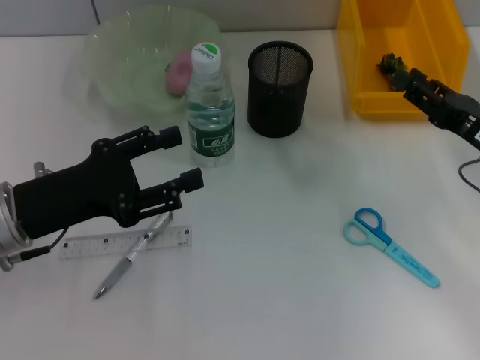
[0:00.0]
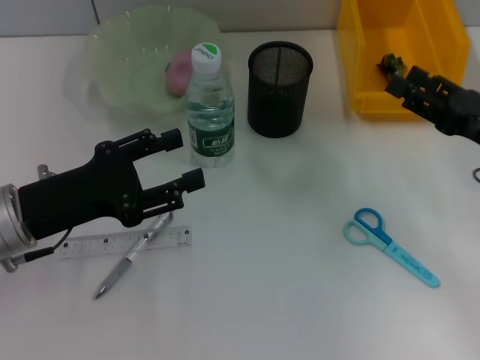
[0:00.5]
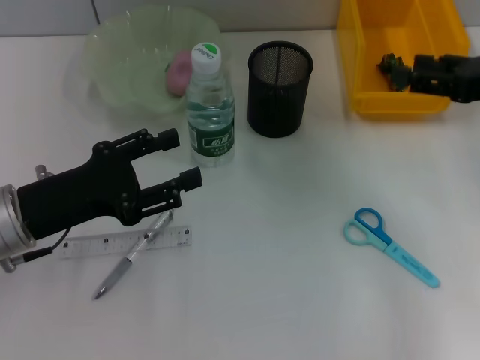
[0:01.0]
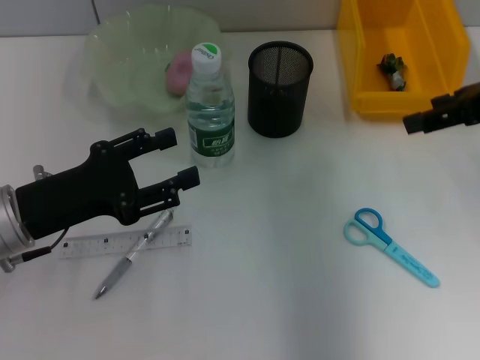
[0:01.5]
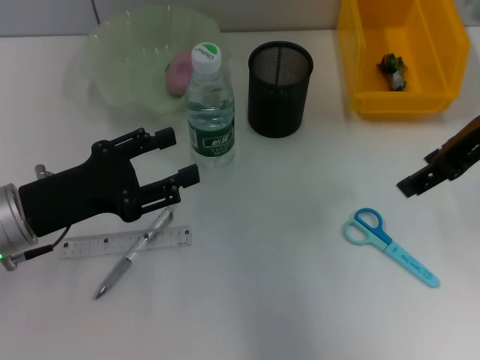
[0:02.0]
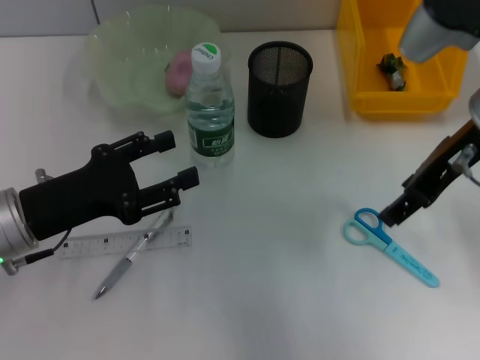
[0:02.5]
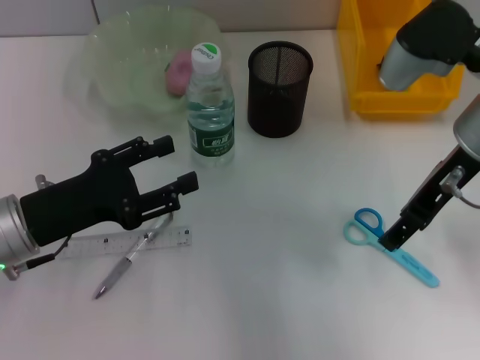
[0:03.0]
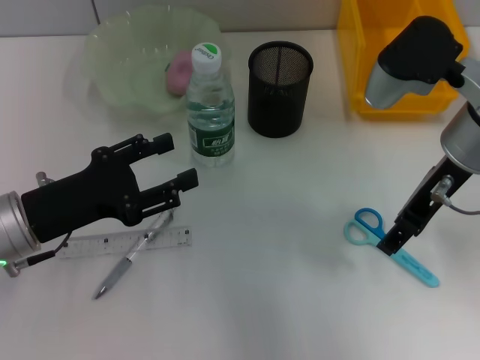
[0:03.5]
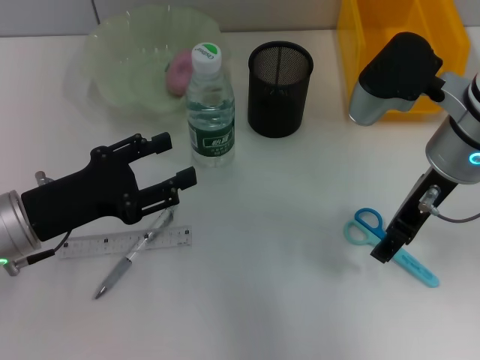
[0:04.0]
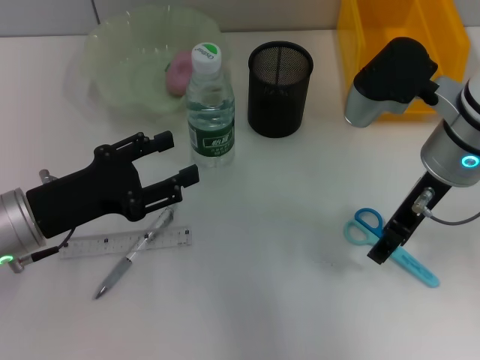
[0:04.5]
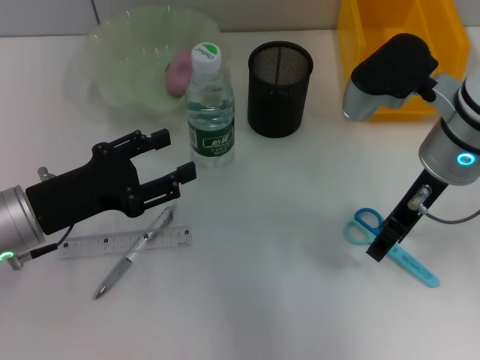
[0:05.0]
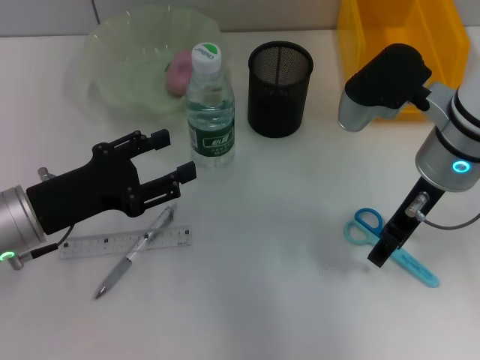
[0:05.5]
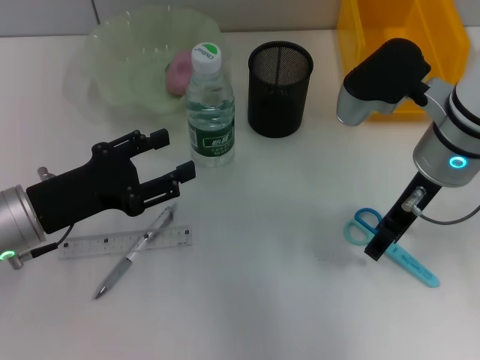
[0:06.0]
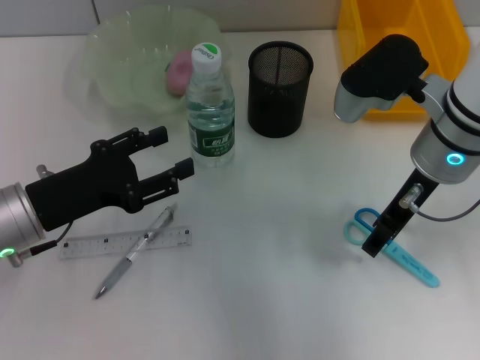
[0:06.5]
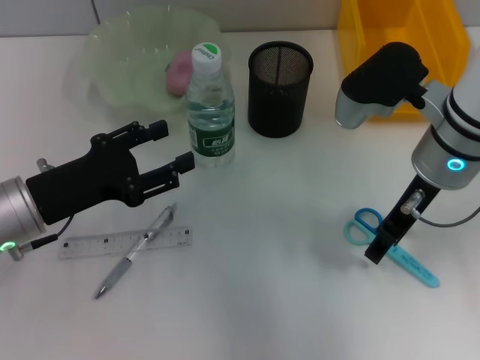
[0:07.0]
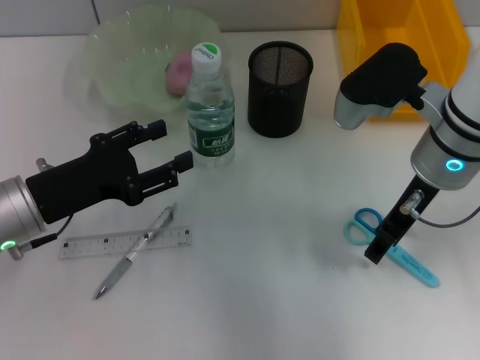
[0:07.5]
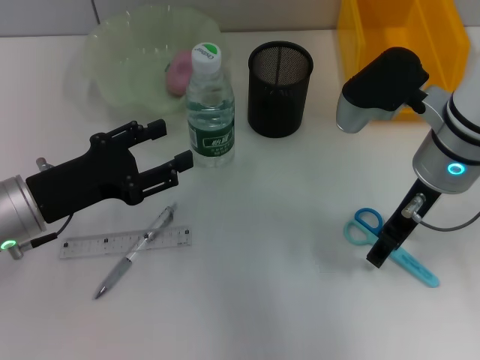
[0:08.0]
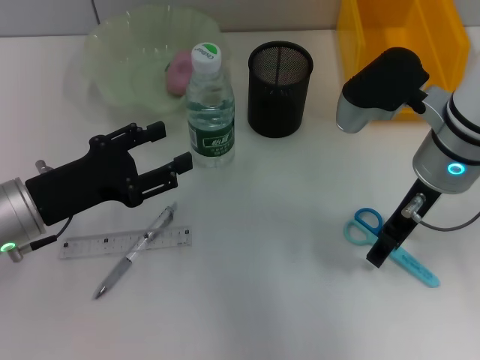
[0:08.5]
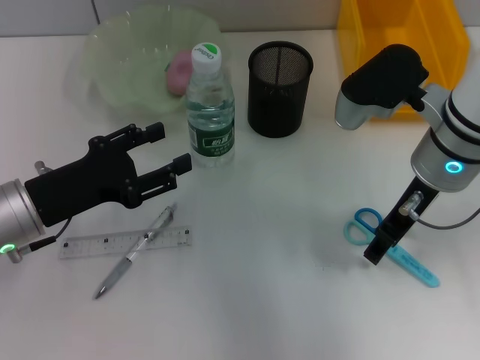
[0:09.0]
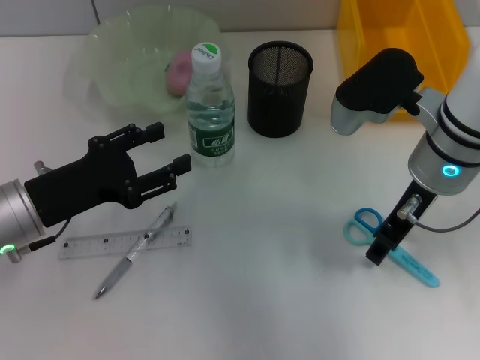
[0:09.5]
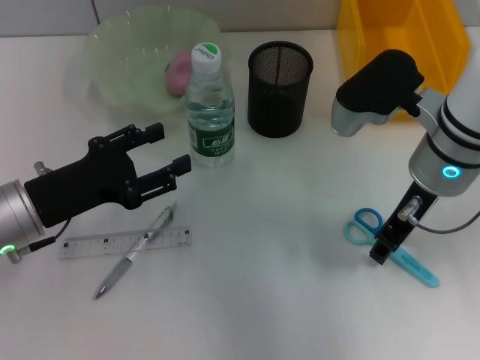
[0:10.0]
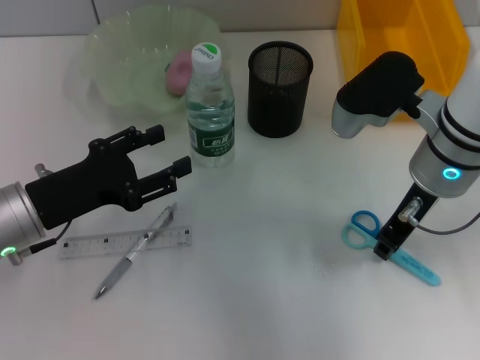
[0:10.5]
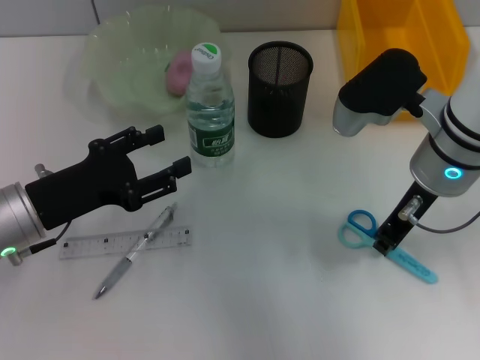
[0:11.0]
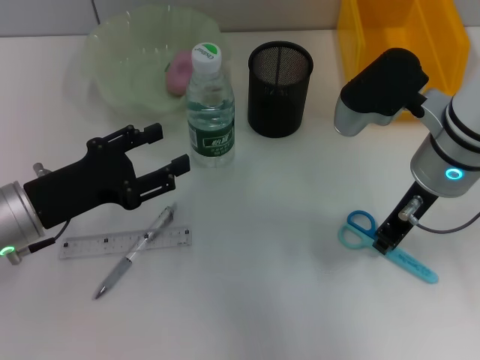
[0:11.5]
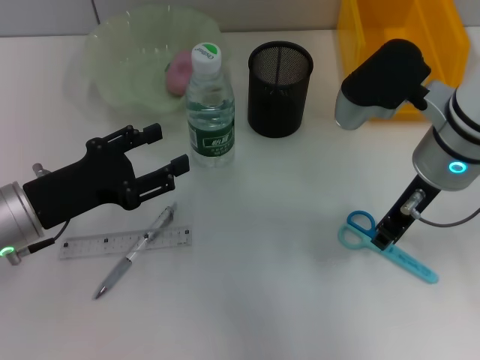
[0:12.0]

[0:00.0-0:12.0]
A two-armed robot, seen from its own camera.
0:00.0 to 0:02.0: The right gripper shifts approximately 15 cm upward.
0:02.0 to 0:04.0: The right gripper is displaced downward and to the left by roughly 10 cm.
0:04.0 to 0:06.0: The grippers make only small movements.
0:06.0 to 0:10.0: Both grippers stay about where they are.
0:10.0 to 0:12.0: The right gripper closes.

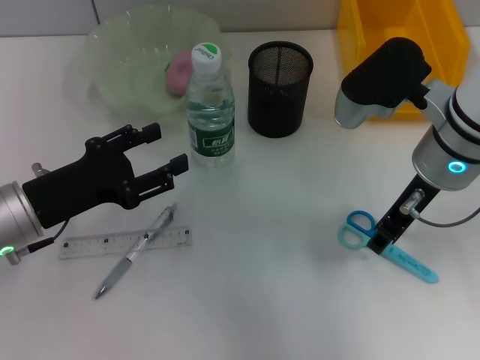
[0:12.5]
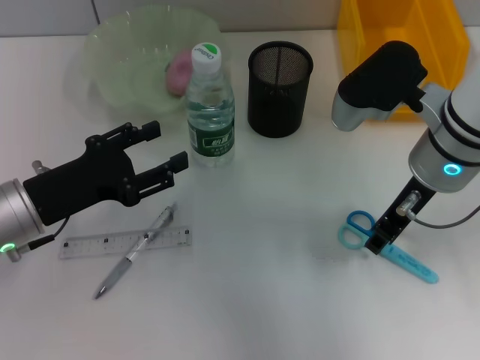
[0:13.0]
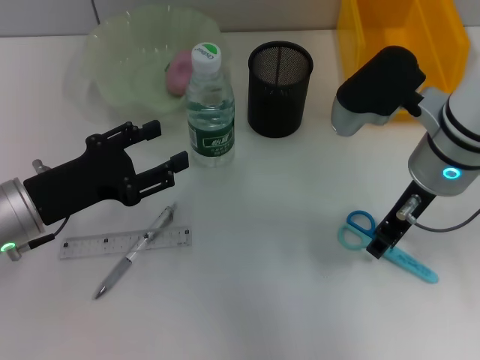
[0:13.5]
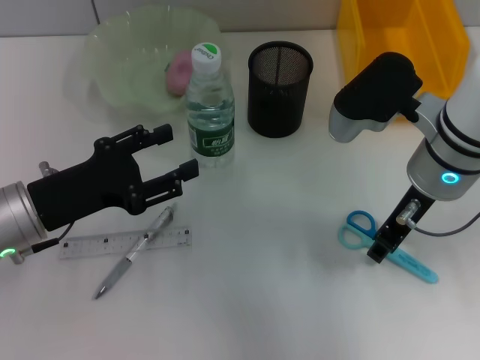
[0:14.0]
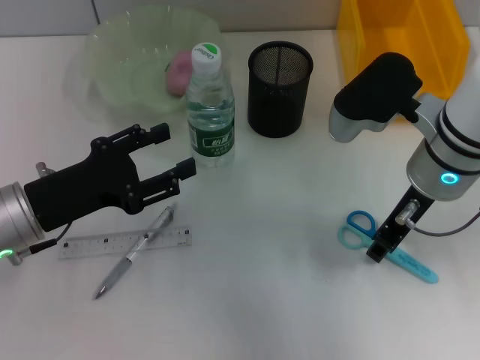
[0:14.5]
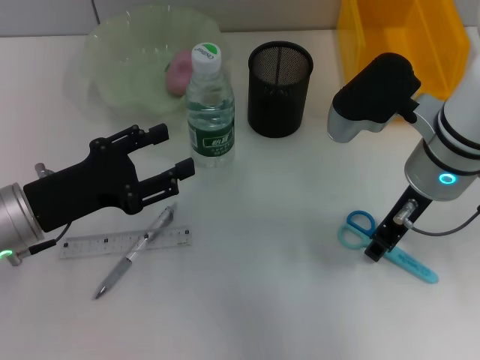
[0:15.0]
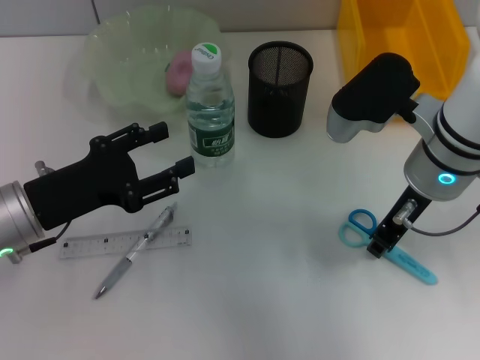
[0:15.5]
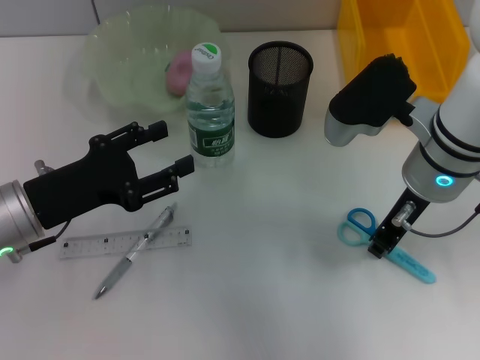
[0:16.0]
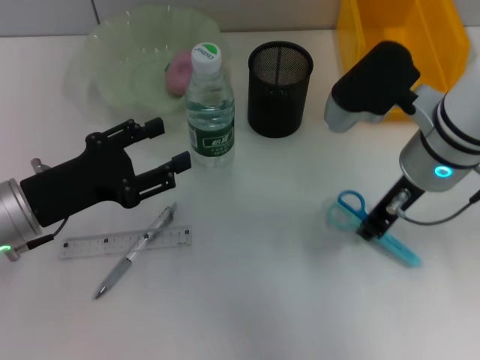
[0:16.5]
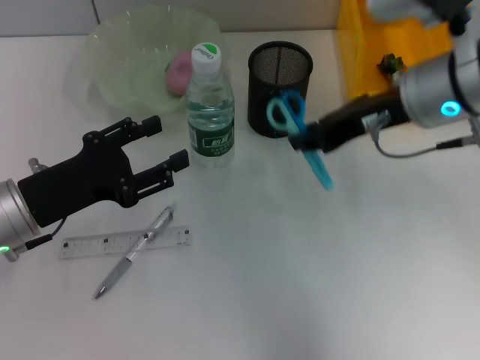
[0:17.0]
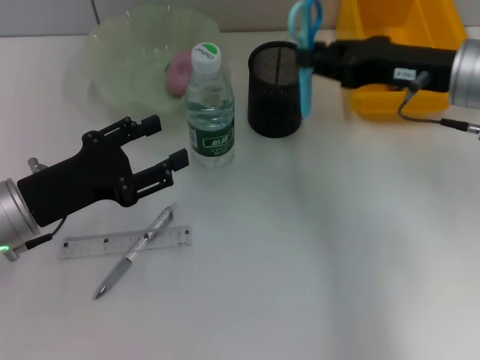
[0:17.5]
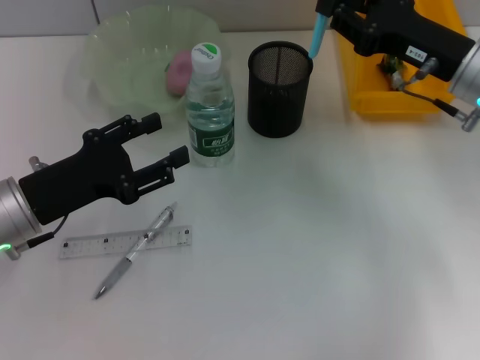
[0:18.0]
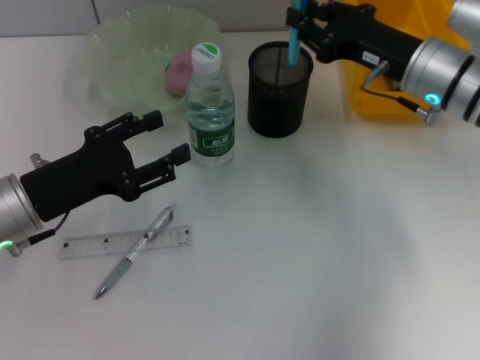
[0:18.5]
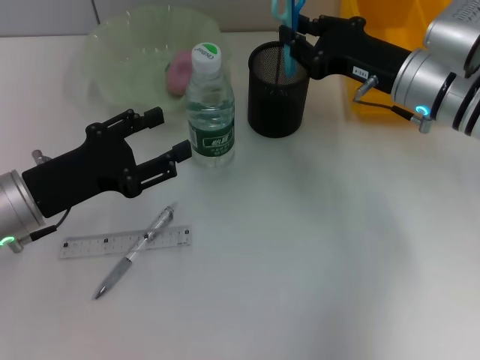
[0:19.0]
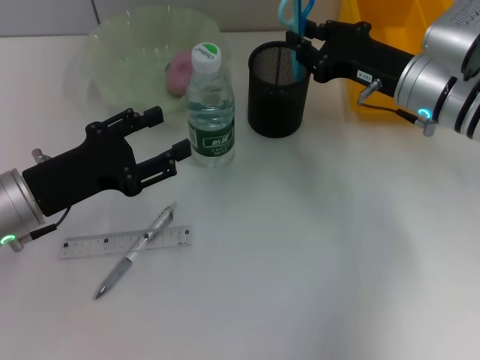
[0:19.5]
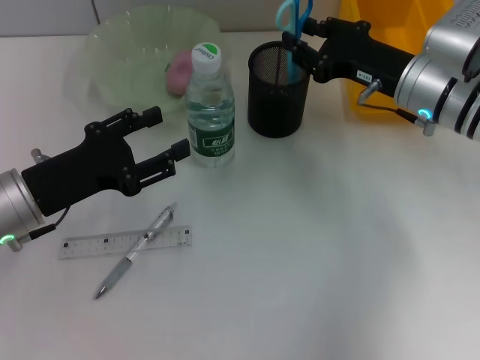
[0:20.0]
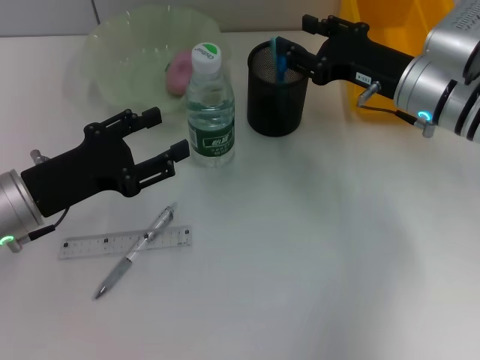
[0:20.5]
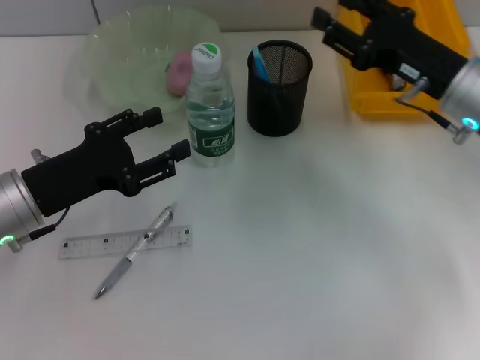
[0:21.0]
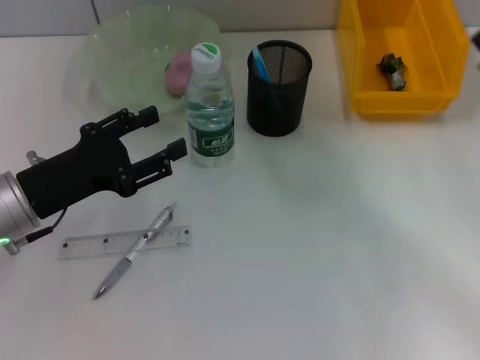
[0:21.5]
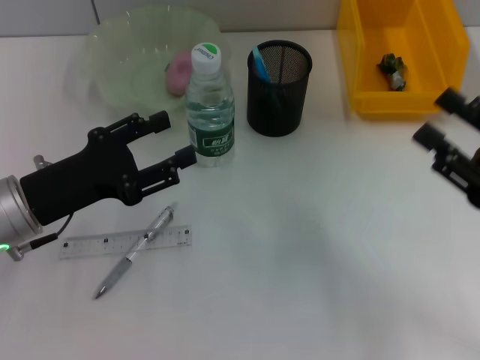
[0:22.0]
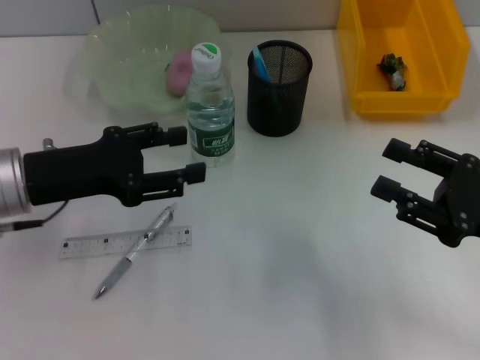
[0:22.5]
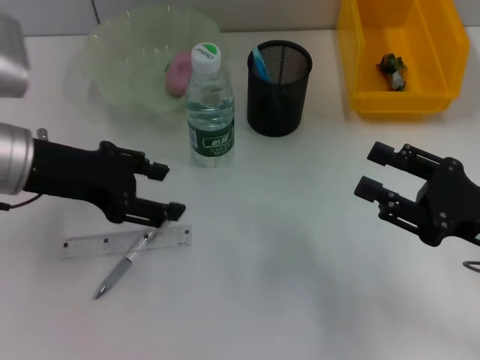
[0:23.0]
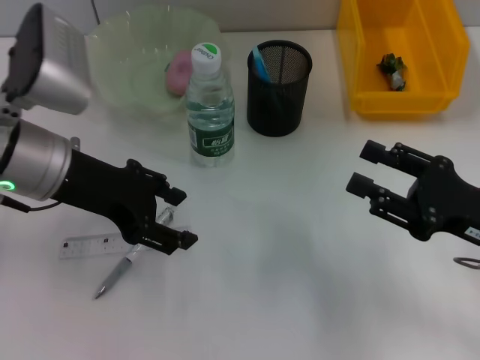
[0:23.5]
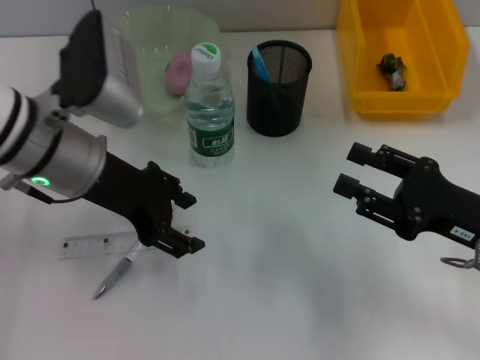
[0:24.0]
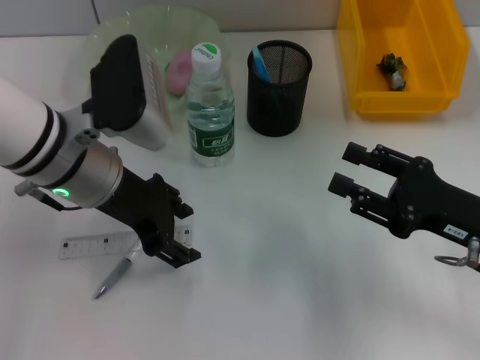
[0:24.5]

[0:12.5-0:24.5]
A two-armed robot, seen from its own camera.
Step, 0:12.5 to 0:16.0: Grab the blue scissors with the right hand.
Step, 0:16.5 to 0:20.5: Place the blue scissors into the pen holder with the right hand.
0:12.5 to 0:14.5: The two grippers keep their place.
0:14.5 to 0:16.5: The grippers stay close to where they were, moving slightly.
0:16.5 to 0:18.5: The right gripper is displaced forward by some 5 cm.
0:18.5 to 0:20.5: The grippers make only small movements.
0:20.5 to 0:22.5: The right gripper travels backward and to the right by roughly 20 cm.
0:22.5 to 0:24.5: The left gripper is displaced to the right by about 10 cm.

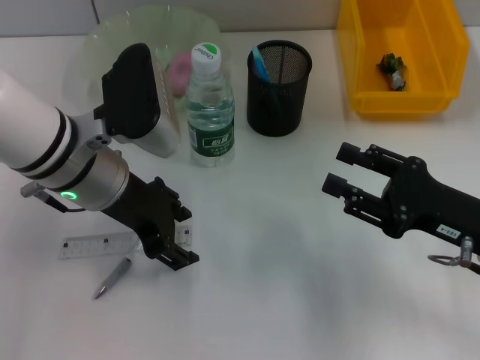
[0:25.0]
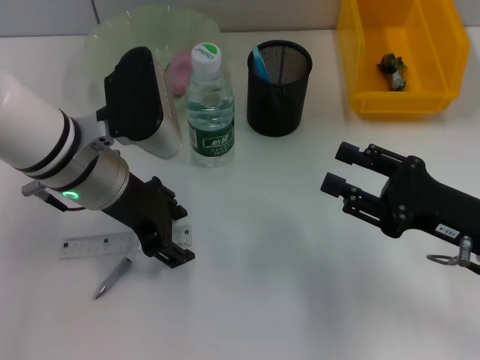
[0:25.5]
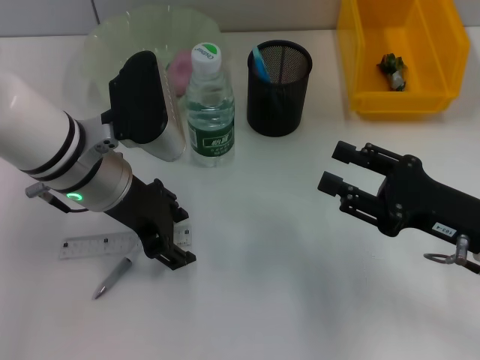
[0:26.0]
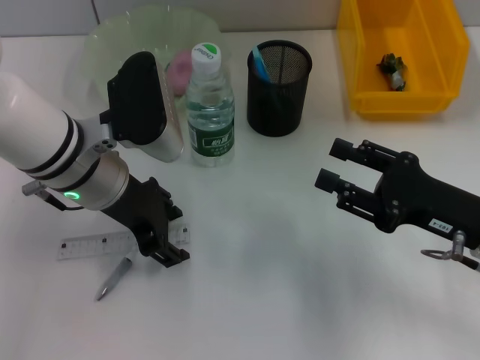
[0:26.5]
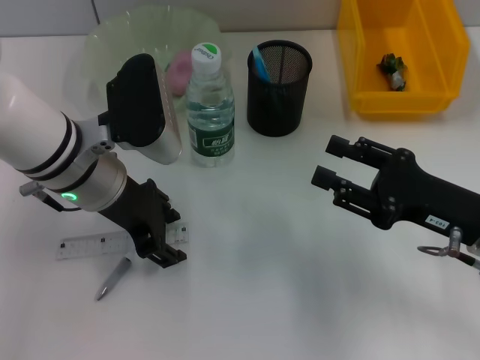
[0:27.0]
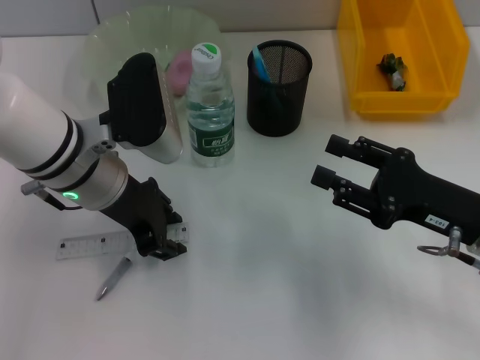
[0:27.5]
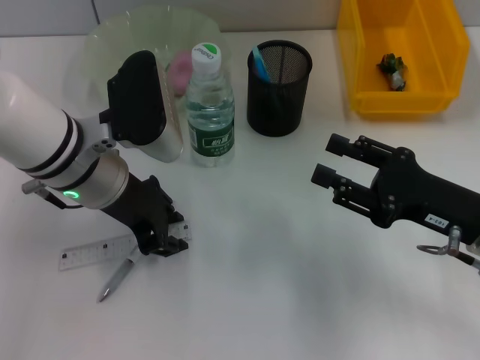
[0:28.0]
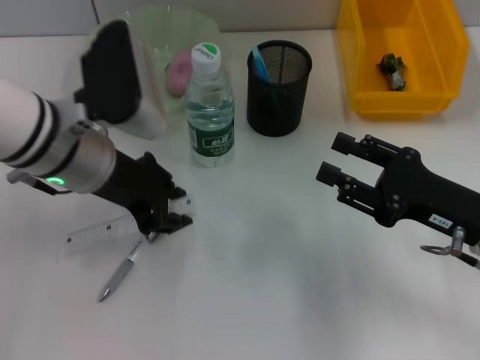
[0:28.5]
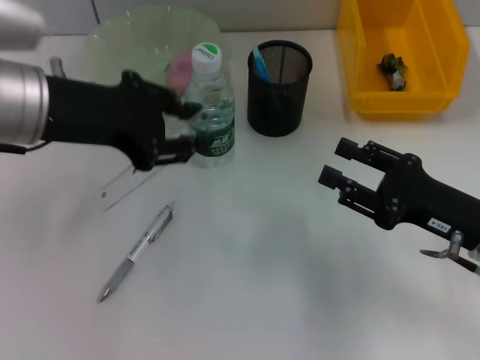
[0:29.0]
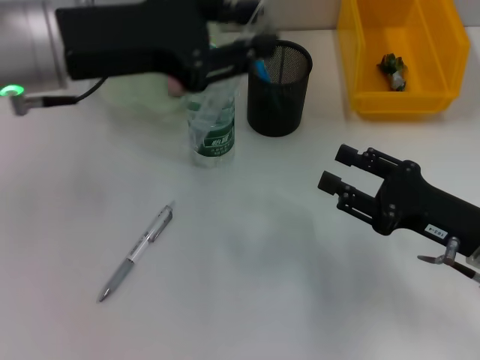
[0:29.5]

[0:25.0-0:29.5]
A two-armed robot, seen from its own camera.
Step, 0:25.0 to 0:27.5: Grab the ruler with the left hand.
0:25.0 to 0:27.0: Both grippers stay about where they are.
0:27.0 to 0:29.5: The left gripper travels upward by approximately 10 cm, and closes up.
